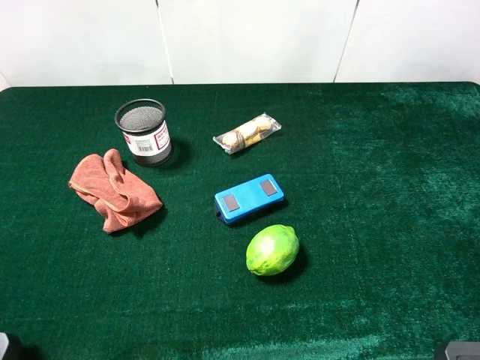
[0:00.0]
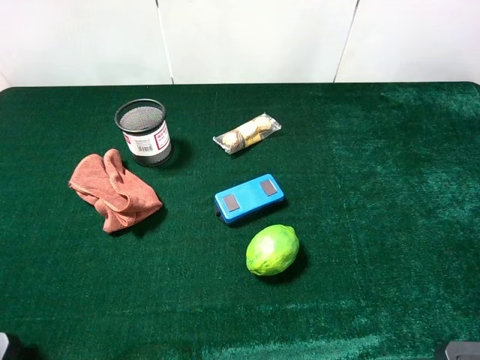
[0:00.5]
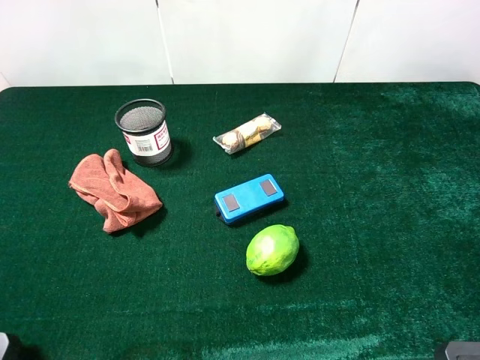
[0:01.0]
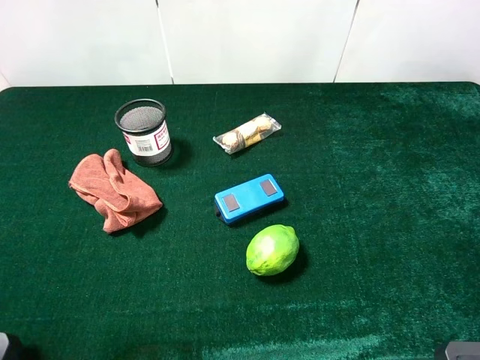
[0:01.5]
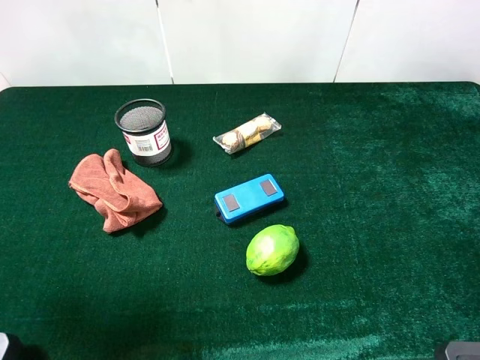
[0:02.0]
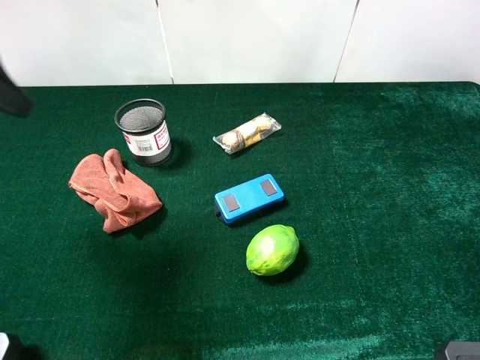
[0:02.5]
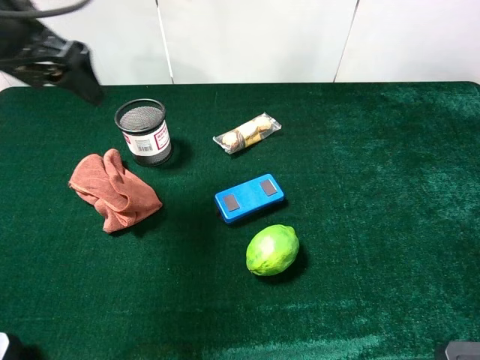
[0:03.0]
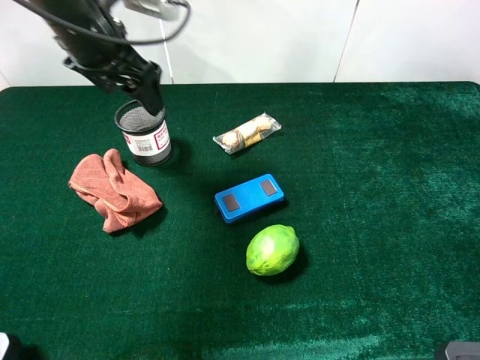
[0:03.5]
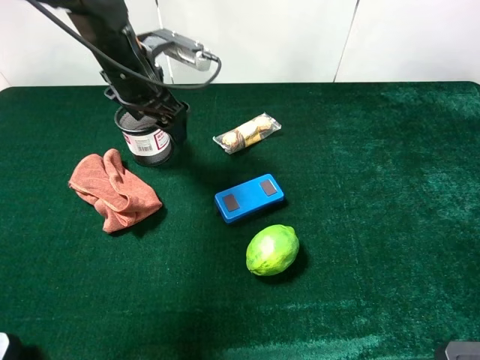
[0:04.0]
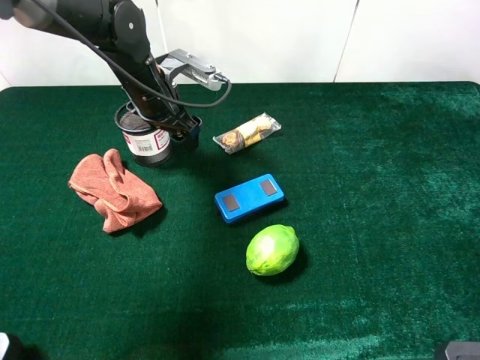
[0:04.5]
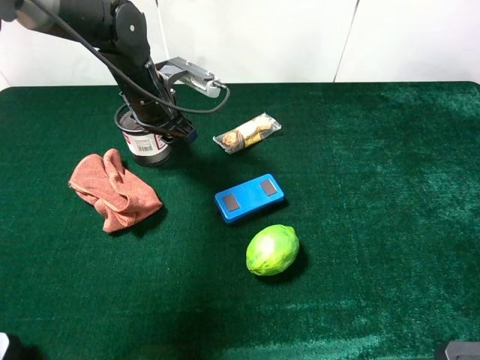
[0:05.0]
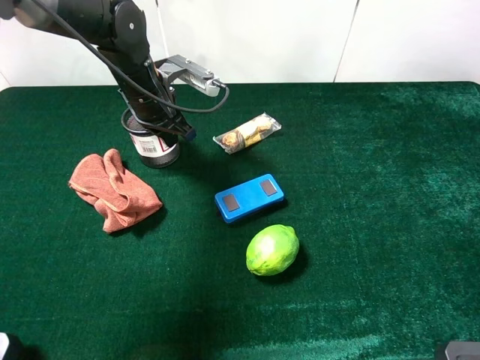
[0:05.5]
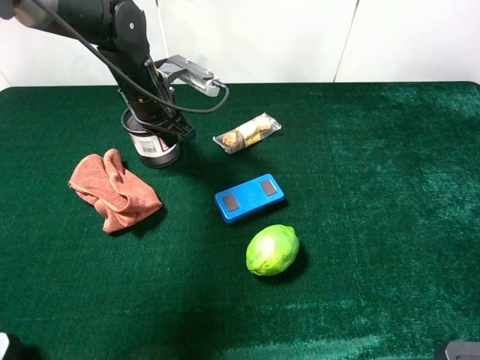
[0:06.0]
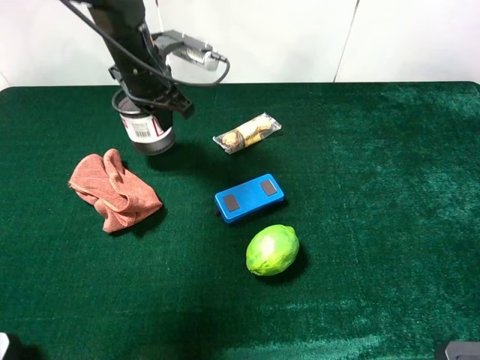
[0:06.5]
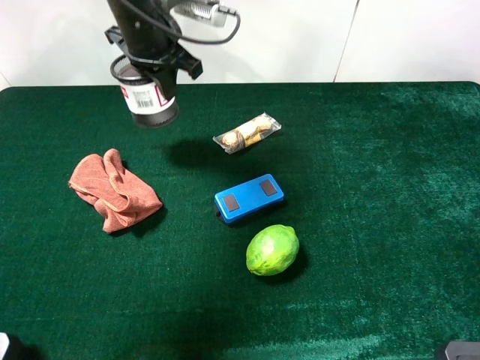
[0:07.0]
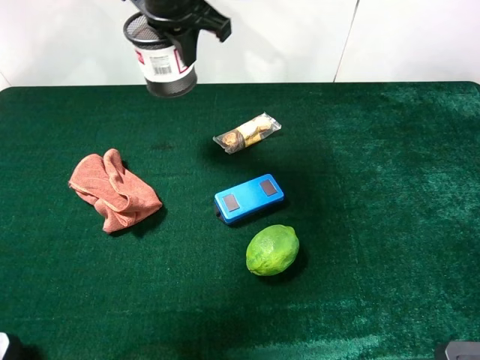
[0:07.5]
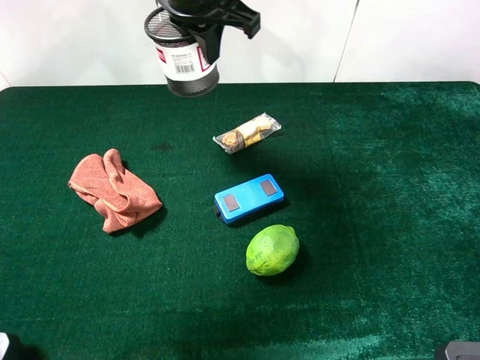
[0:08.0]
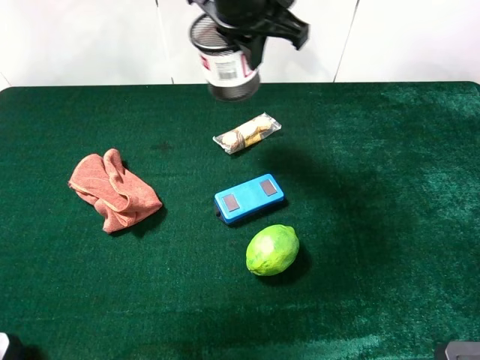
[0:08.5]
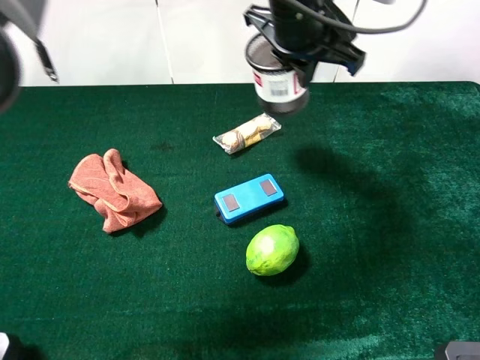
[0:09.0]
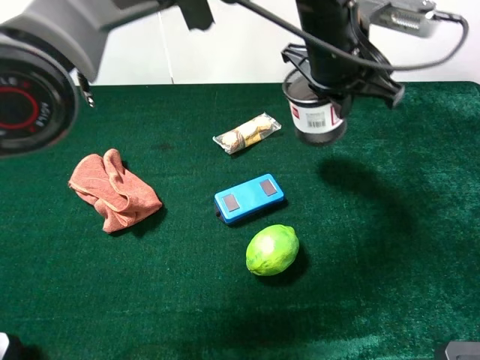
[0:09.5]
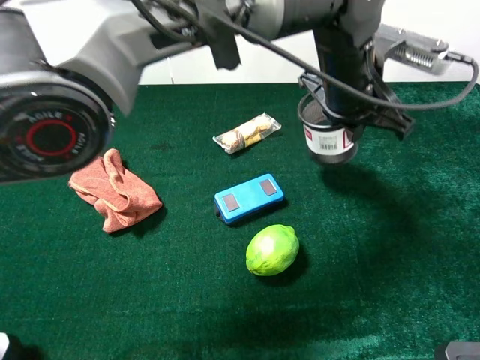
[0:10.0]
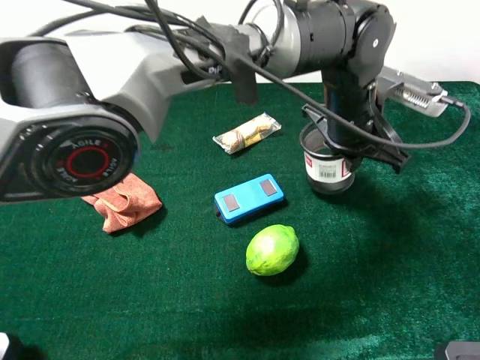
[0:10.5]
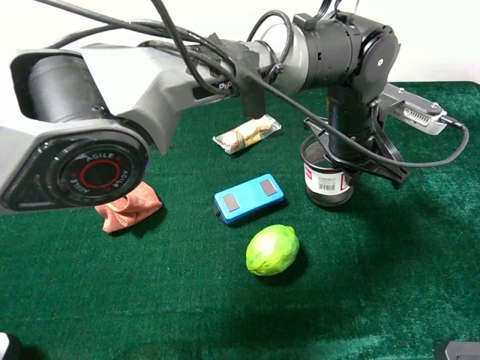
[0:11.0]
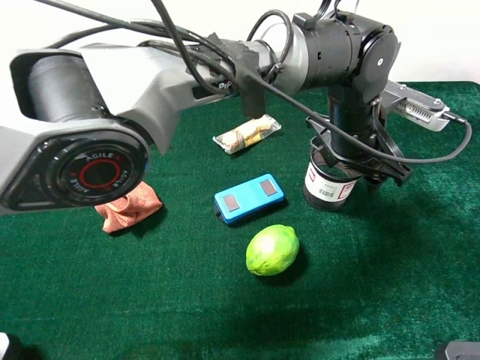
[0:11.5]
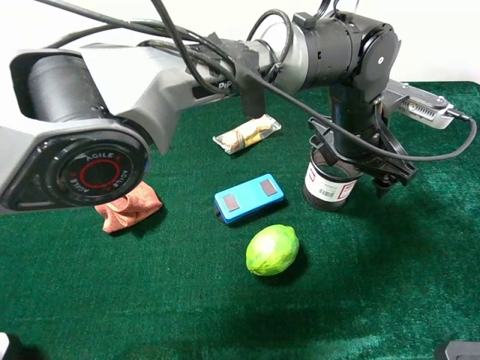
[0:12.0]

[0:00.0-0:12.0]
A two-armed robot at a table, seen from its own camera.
Task of the whole recording: the gripper move the object.
0:00.0 to 0:02.0: The left gripper is displaced forward by some 15 cm.
0:02.0 to 0:04.0: The left gripper goes approximately 35 cm forward, to the right and downward.
0:04.0 to 0:06.0: The left gripper closes.
0:06.0 to 0:08.0: The left gripper goes some 20 cm upward and to the right.
0:08.0 to 0:10.0: The left gripper is displaced to the right and downward by approximately 20 cm.
0:10.0 to 0:12.0: The left gripper moves roughly 5 cm, and opens up.

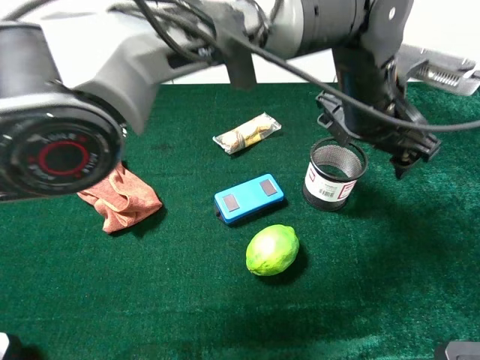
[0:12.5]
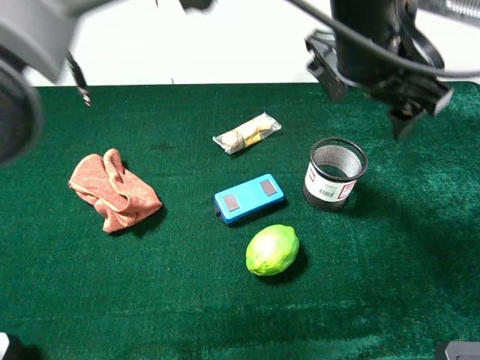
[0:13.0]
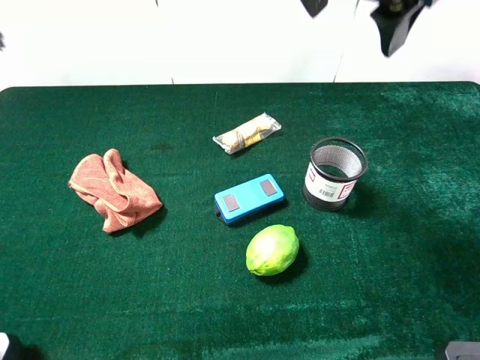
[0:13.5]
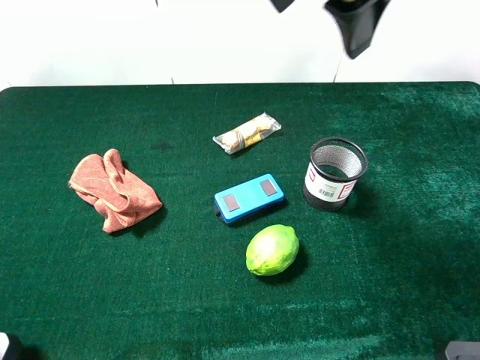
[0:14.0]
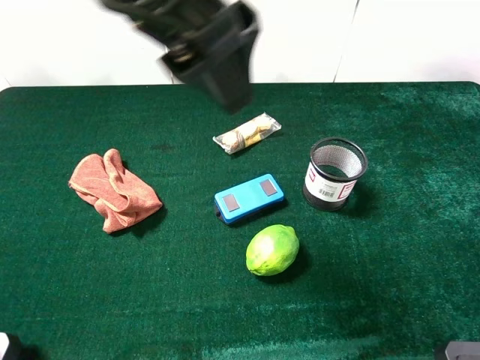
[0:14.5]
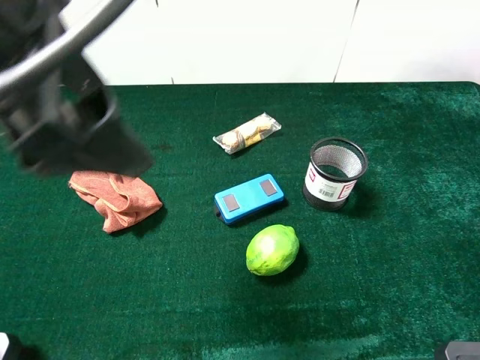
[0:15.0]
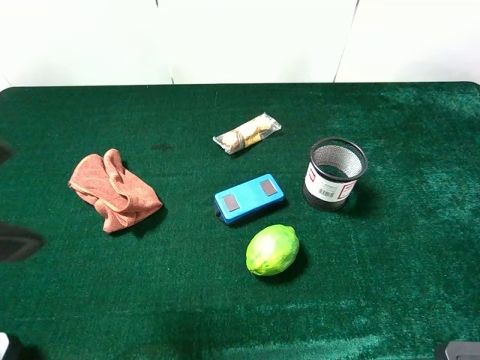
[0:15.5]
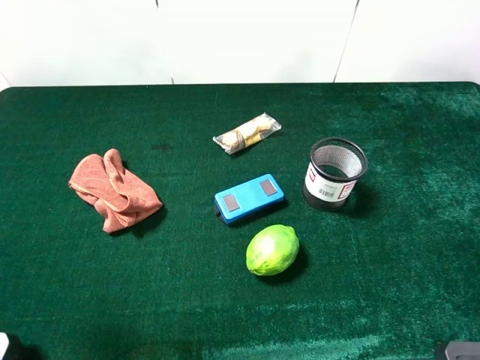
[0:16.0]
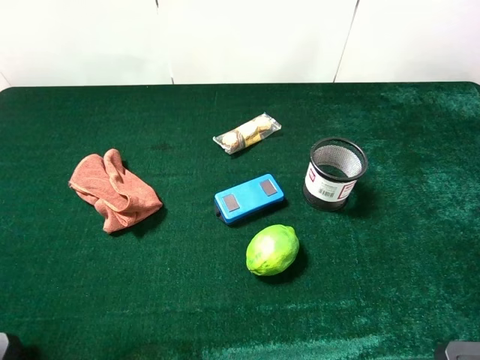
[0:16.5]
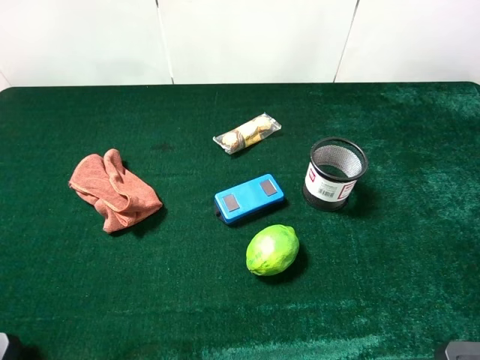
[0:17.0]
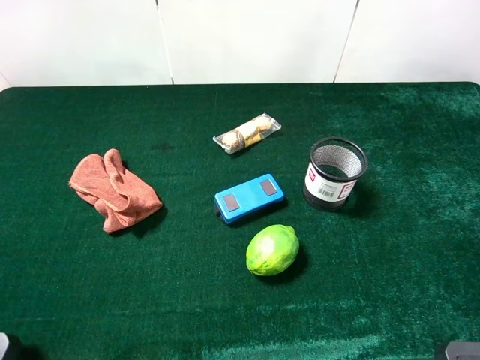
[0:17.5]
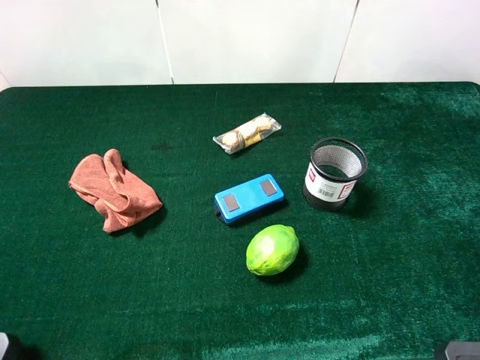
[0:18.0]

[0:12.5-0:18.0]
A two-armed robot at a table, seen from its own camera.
Task of the whole recording: the gripper move the object.
0:12.5 to 0:14.5: The left gripper is displaced to the left, upward and backward by some 30 cm.
0:14.5 to 0:16.0: The left gripper travels to the left and backward by roughly 25 cm.

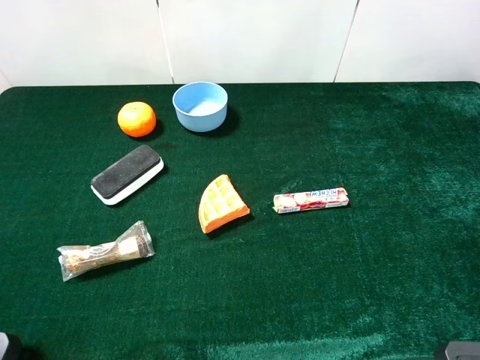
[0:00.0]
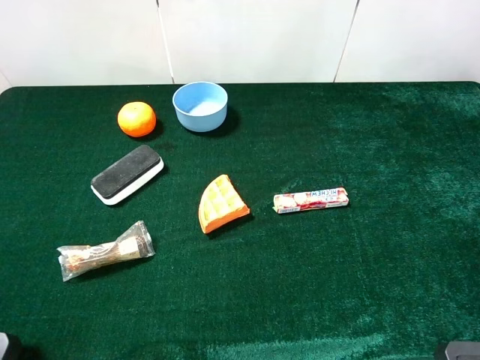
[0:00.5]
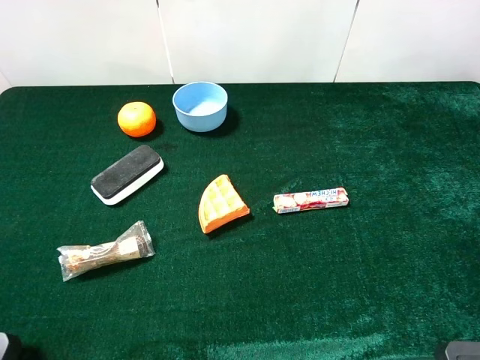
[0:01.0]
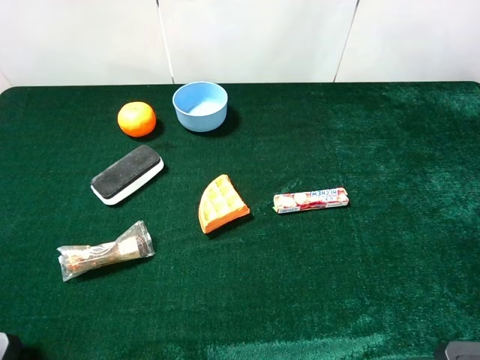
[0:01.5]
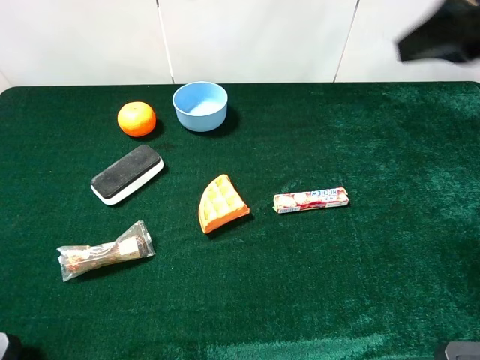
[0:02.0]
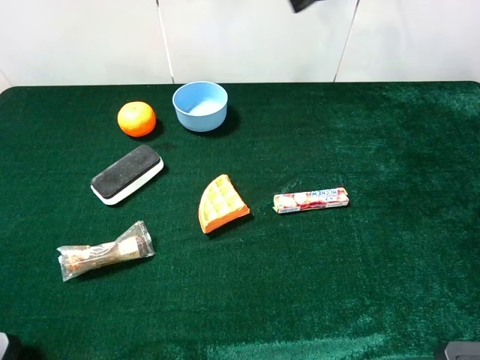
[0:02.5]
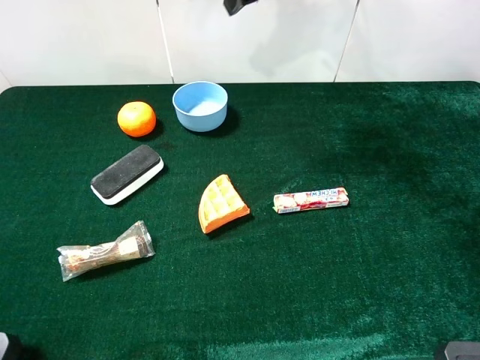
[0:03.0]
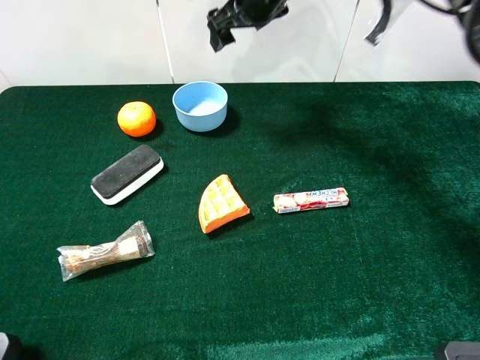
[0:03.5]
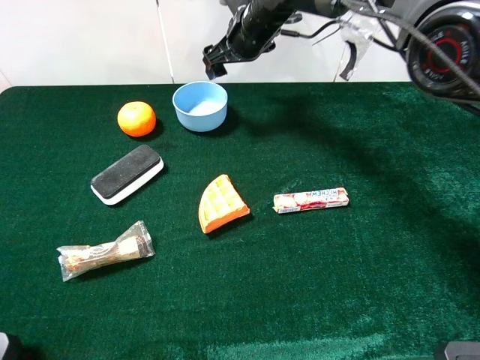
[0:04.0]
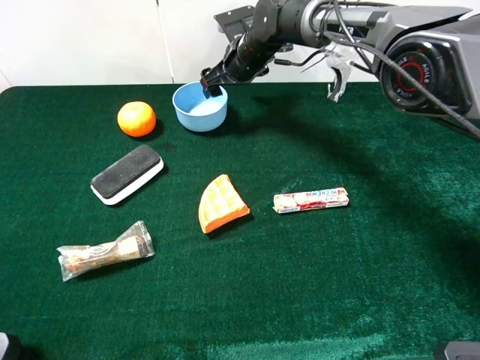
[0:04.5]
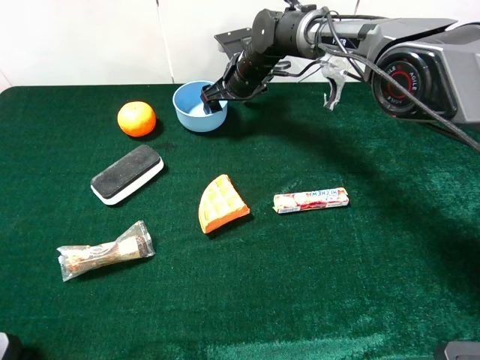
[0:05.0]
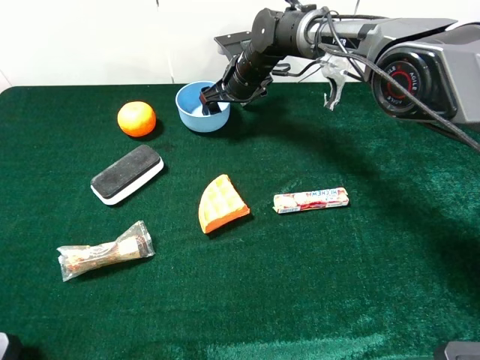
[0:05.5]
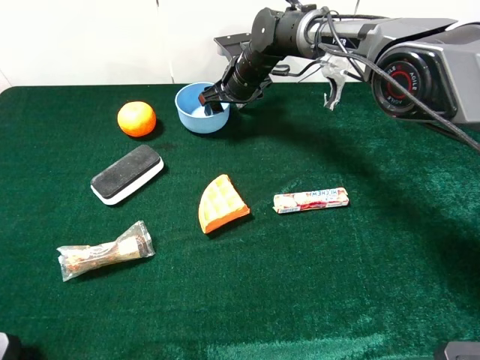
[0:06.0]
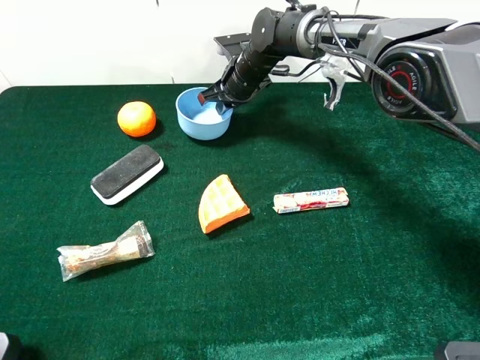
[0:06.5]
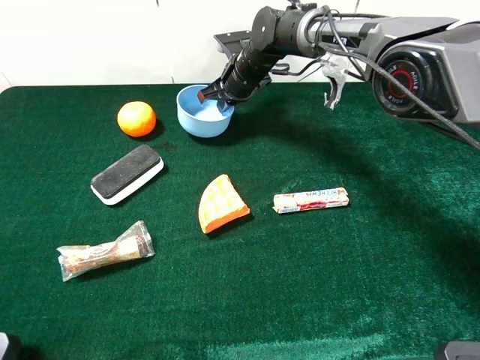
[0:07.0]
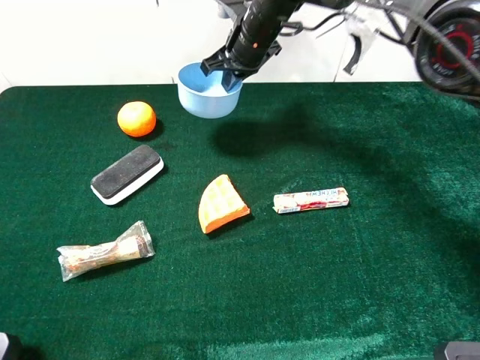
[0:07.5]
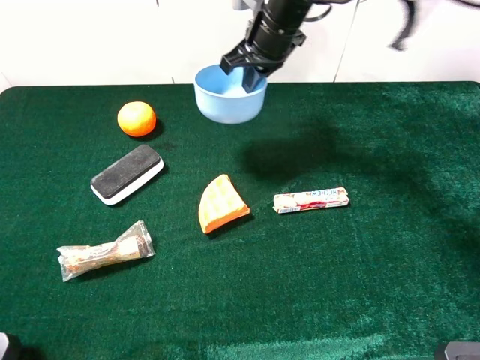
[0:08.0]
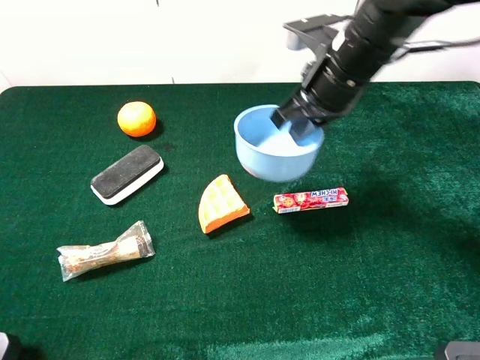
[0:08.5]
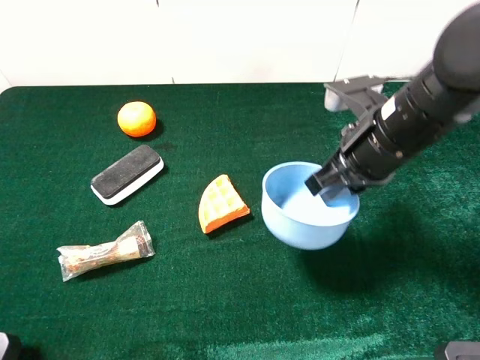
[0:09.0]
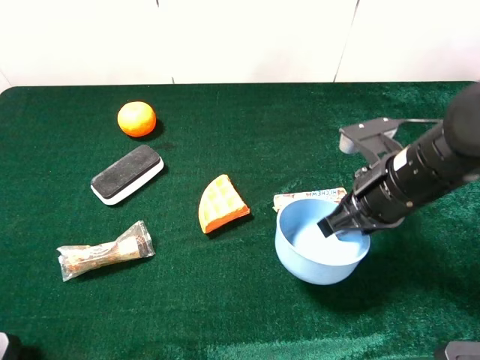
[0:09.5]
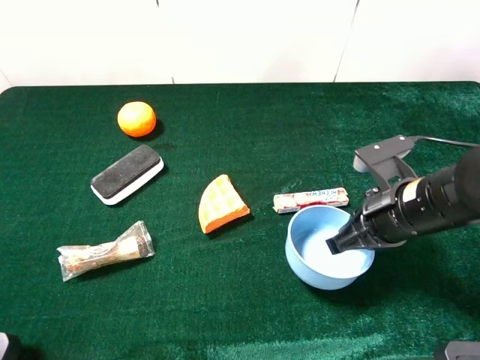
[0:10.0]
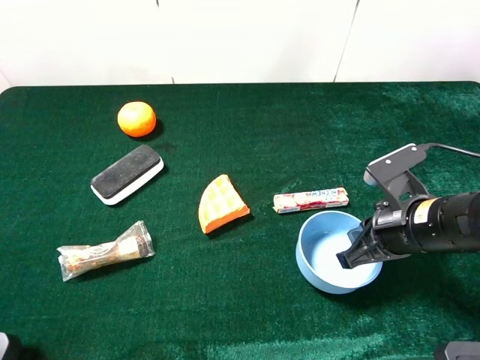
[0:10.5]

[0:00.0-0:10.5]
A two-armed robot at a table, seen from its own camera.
Task of the whole recording: the gripper move the object.
Step, 0:00.0 to 0:06.5: Grasp the blue bowl with the right gripper.
0:00.0 to 0:02.0: The right gripper heads forward, covering about 20 cm.
0:02.0 to 0:04.0: The right gripper heads forward, to the left and downward, covering approximately 40 cm.
0:04.0 to 0:06.5: The right gripper is displaced downward by approximately 5 cm, and closes up.
0:06.5 to 0:08.5: The right gripper heads backward, upward and to the right, covering roughly 25 cm.
0:08.5 to 0:10.5: The right gripper travels backward, downward and to the right by approximately 20 cm.
